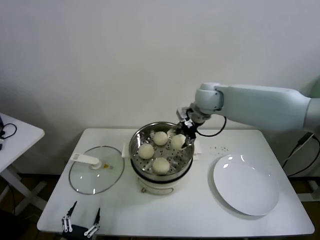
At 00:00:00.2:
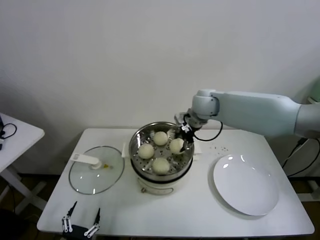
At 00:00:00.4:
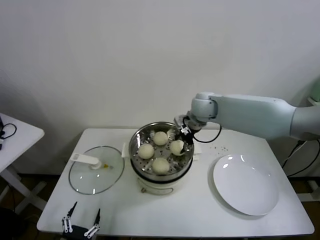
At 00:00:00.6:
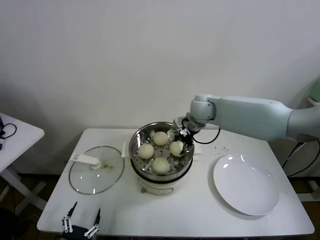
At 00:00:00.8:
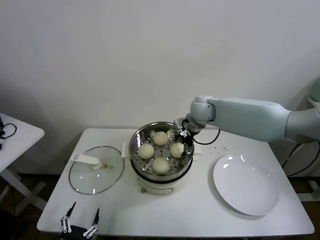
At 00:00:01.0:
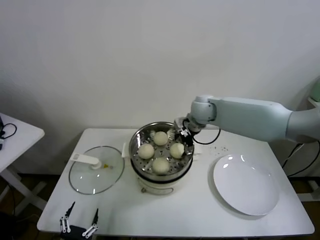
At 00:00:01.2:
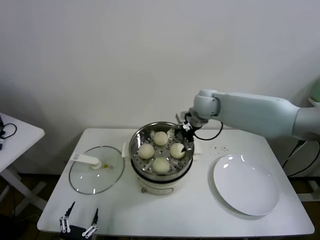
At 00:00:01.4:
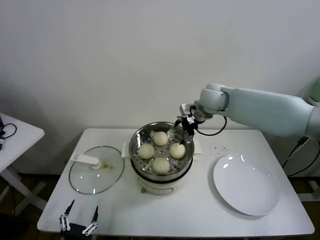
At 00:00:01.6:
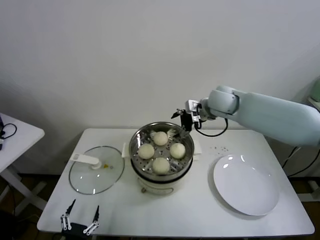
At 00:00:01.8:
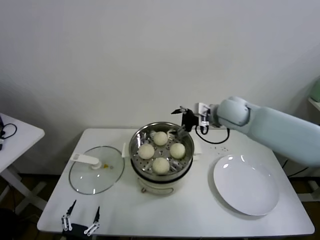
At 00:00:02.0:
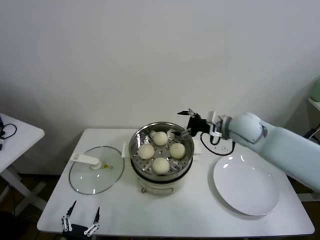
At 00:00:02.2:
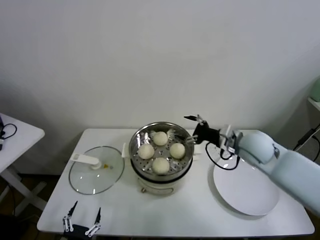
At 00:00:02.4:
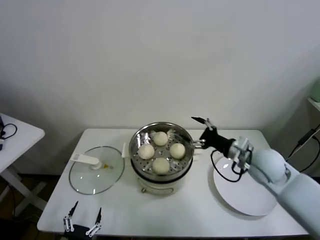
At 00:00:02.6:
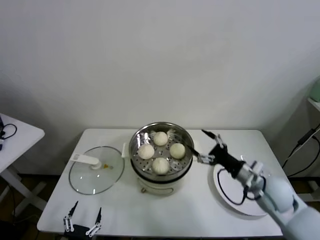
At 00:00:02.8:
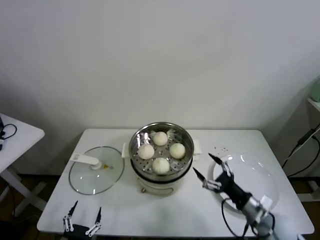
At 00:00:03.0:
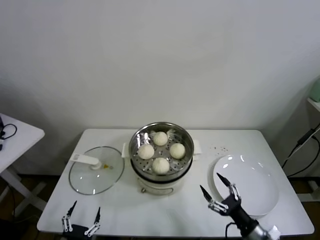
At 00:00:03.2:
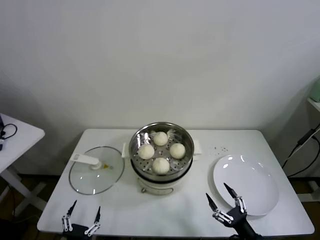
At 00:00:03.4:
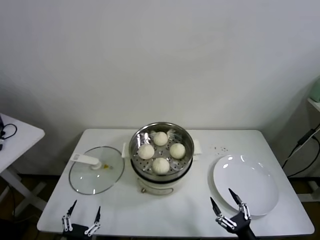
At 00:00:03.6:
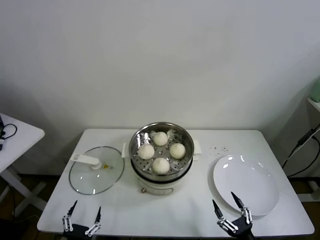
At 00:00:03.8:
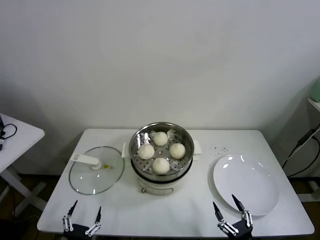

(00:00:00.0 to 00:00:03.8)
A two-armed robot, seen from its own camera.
Task of the whole recording: take steamed baozi put them in steamer.
00:00:00.0 - 00:00:01.2: The right gripper opens up.
00:00:01.2 - 00:00:02.6: The right gripper goes approximately 30 cm backward, to the right and downward.
00:00:02.6 - 00:00:03.8: The right gripper moves backward and downward, approximately 30 cm.
